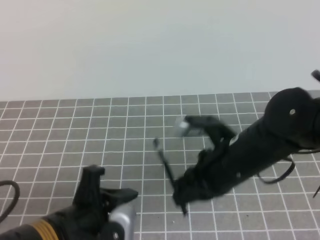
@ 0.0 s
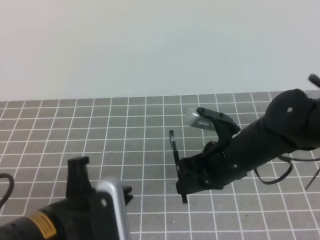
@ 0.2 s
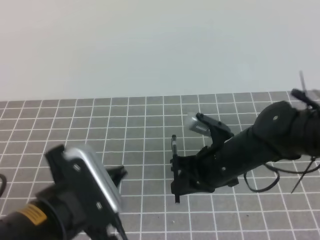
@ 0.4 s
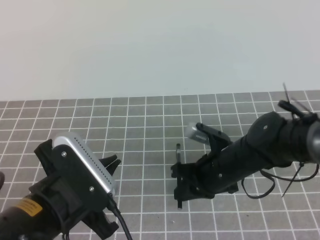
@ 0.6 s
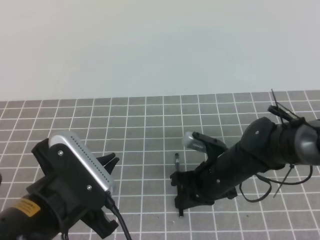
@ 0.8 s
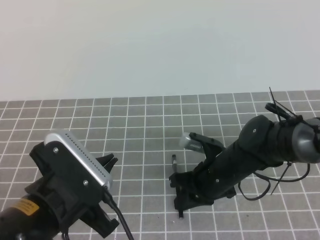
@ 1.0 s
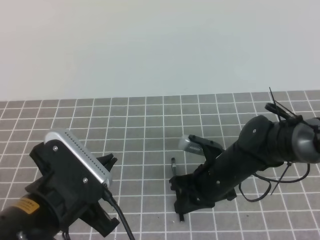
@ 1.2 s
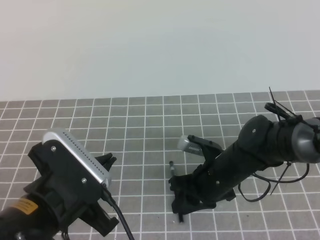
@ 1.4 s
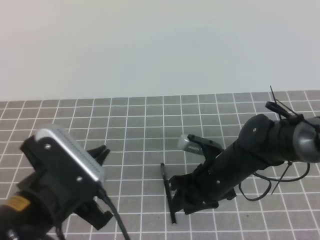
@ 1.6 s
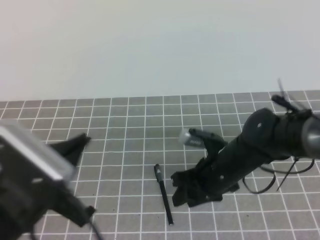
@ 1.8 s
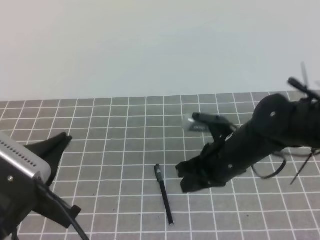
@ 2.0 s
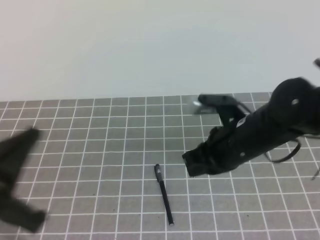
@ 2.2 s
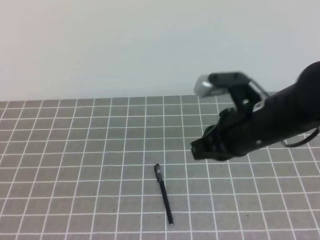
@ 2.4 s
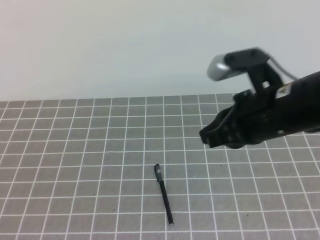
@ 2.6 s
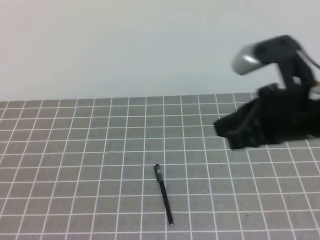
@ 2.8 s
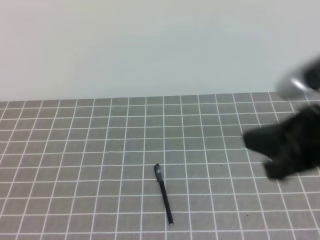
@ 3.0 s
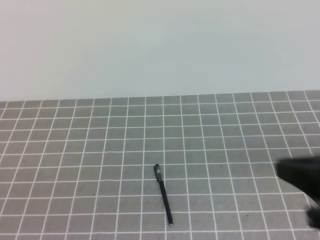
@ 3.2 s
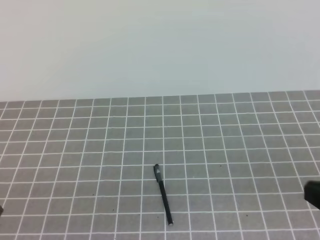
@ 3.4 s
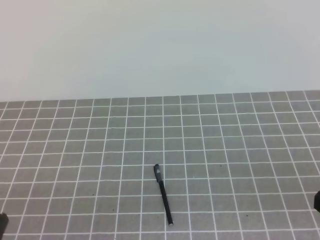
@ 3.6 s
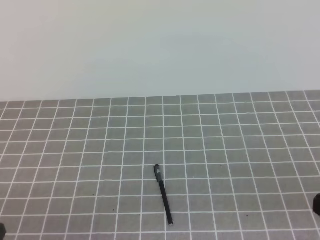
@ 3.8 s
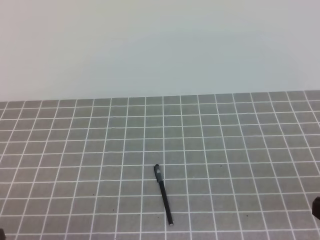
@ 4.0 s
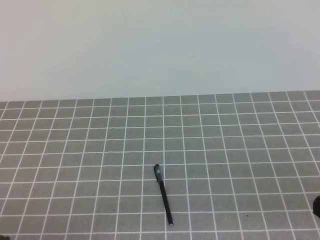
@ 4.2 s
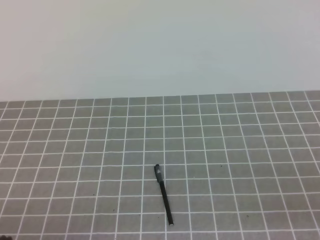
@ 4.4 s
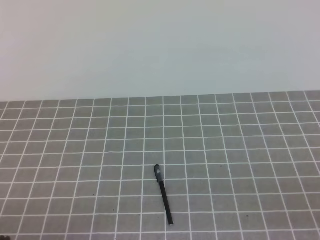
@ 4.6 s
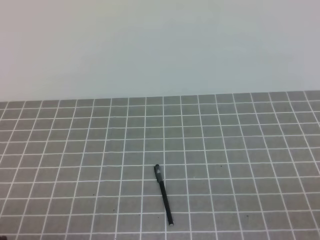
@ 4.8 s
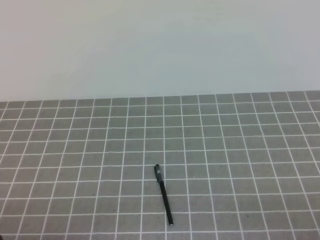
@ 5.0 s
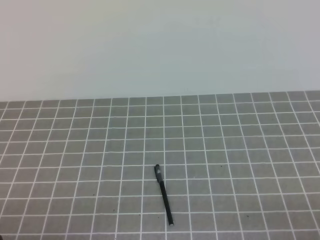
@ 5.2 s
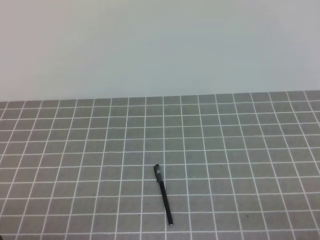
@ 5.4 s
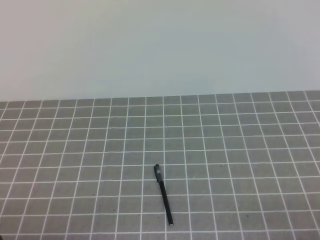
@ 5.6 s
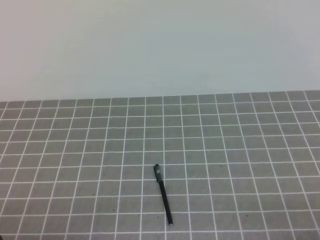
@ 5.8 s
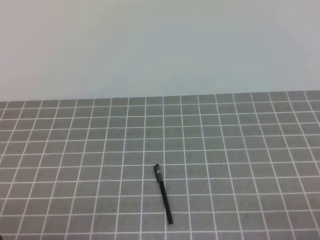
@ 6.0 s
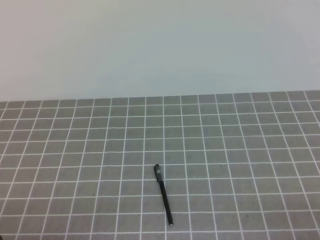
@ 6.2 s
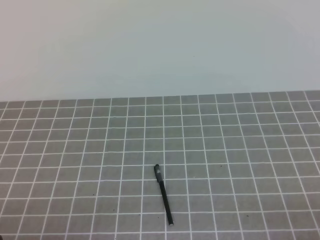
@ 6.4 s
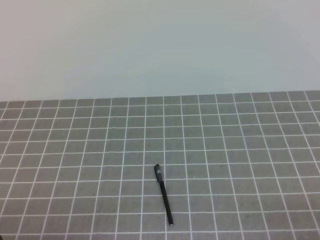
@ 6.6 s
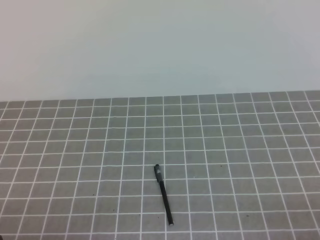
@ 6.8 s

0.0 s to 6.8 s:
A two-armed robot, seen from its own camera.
Task of the whole recording: on the grey tablecloth, hold the pen cap in one hand and the pen in the other, then cover the pen cap.
Step, 0.0 to 6.8 s: Put the cap on the pen.
0.0 to 1.4 s: The right gripper goes about 10 cm downward and forward, and opens up, while the left gripper closes its fingers.
1.4 to 2.8 s: The right gripper moves upward and backward, roughly 25 cm, and closes its fingers. The left gripper travels backward, to the left and upward by about 20 cm.
2.8 to 4.0 s: The right gripper is displaced backward, to the right and downward by roughly 20 cm; the left gripper heads downward, covering approximately 15 cm.
